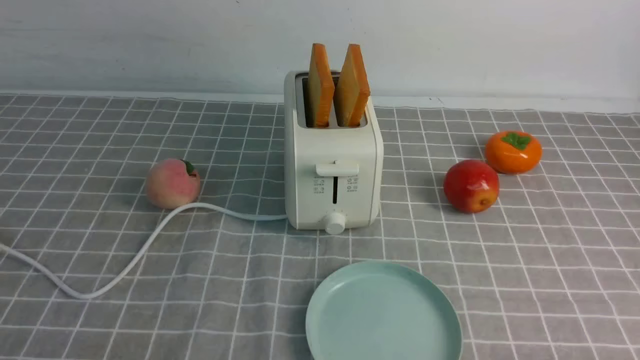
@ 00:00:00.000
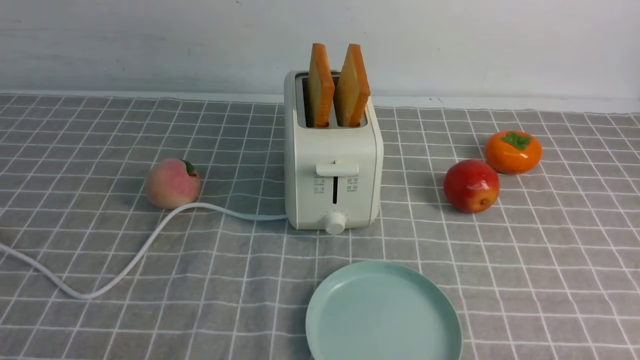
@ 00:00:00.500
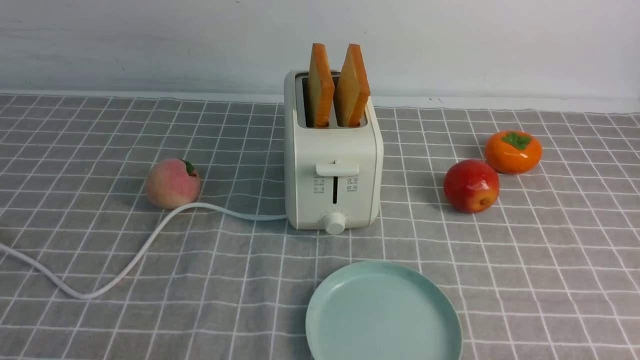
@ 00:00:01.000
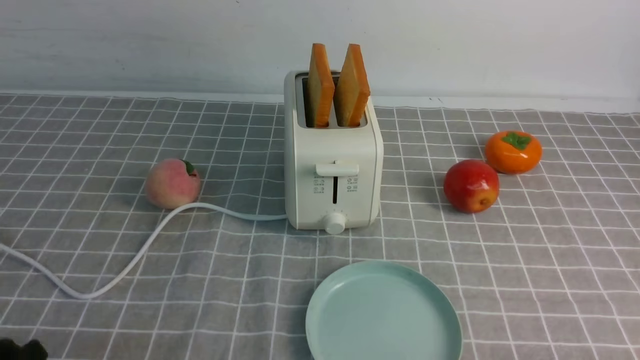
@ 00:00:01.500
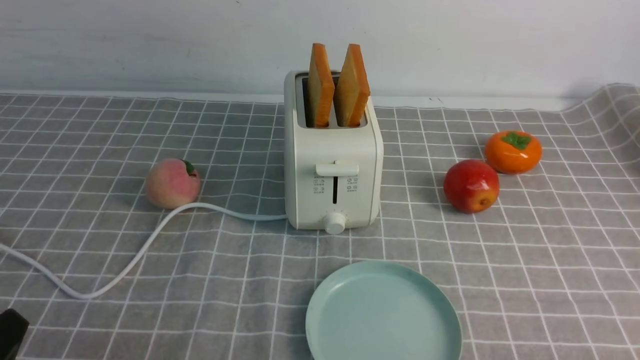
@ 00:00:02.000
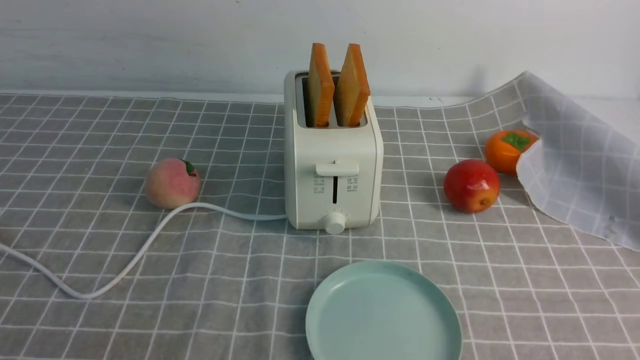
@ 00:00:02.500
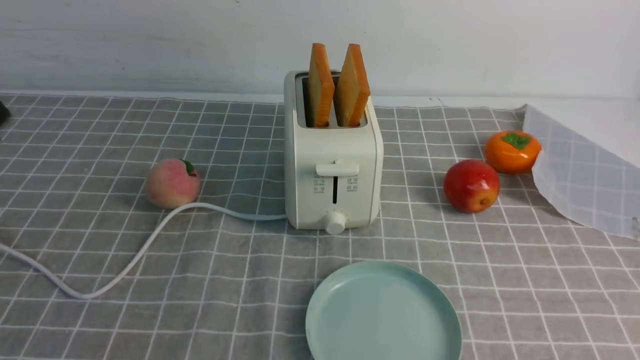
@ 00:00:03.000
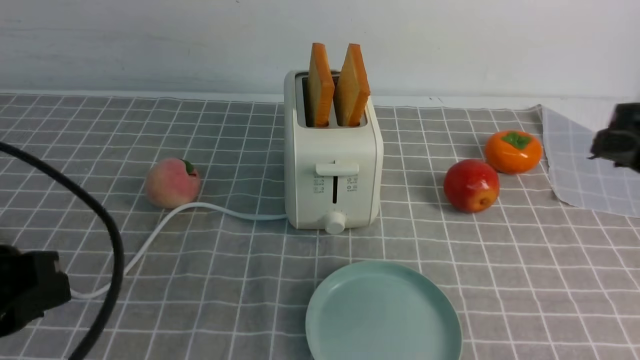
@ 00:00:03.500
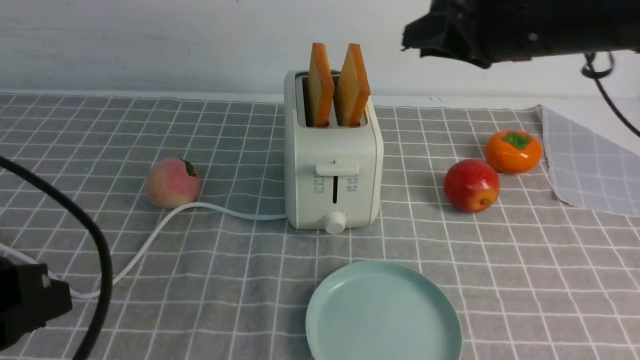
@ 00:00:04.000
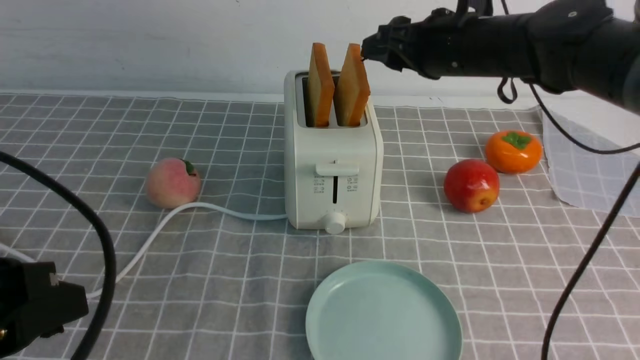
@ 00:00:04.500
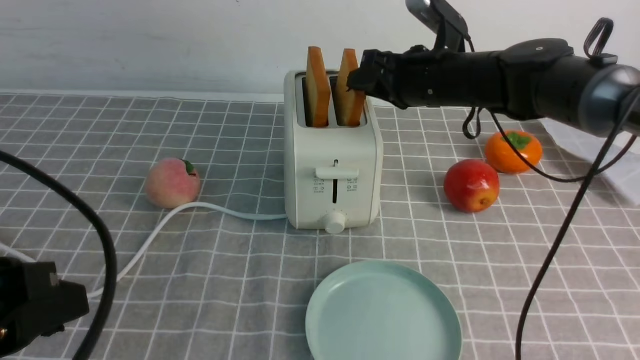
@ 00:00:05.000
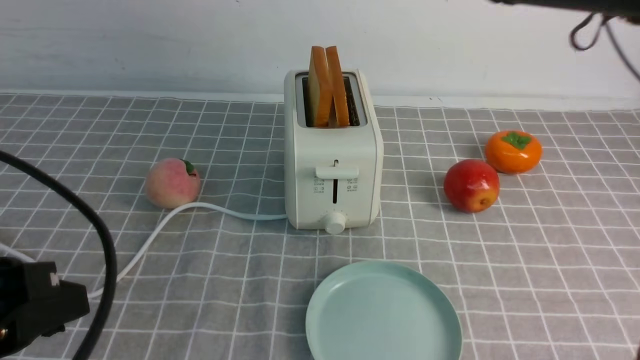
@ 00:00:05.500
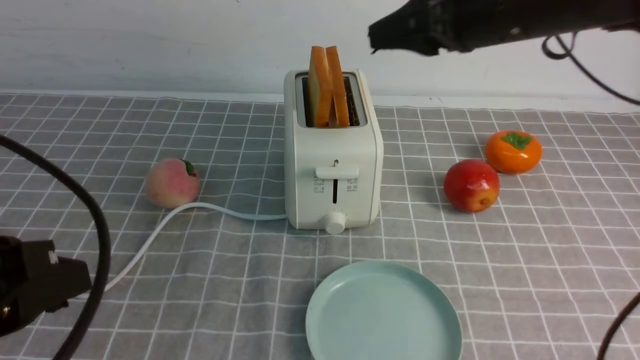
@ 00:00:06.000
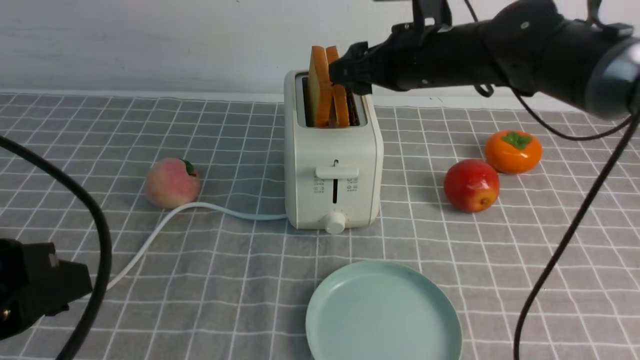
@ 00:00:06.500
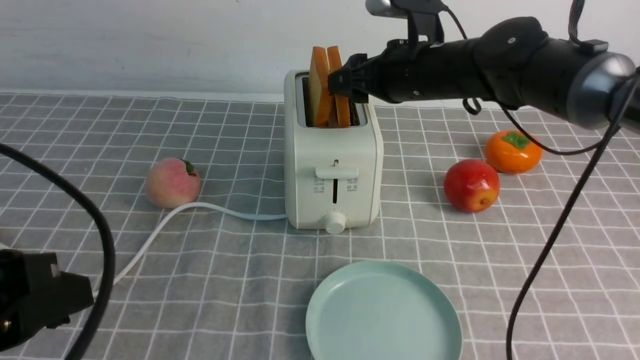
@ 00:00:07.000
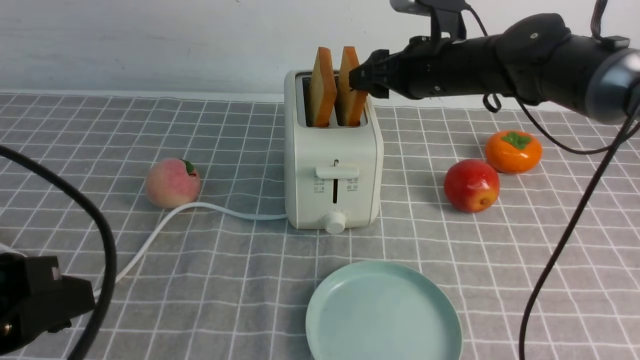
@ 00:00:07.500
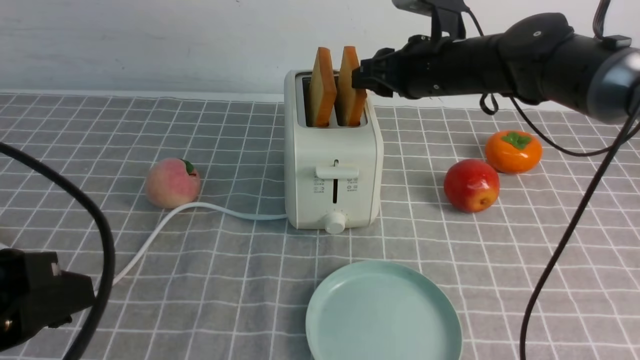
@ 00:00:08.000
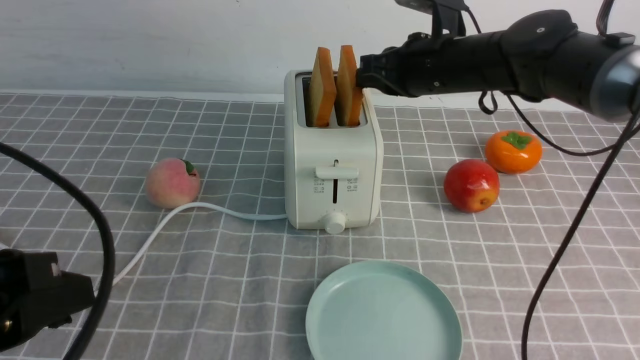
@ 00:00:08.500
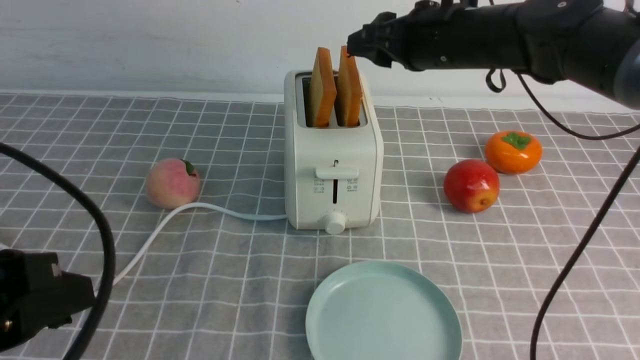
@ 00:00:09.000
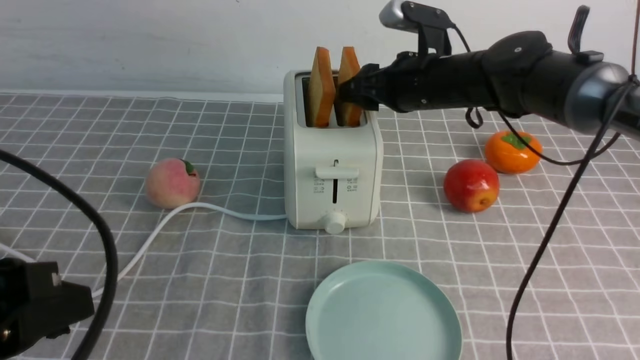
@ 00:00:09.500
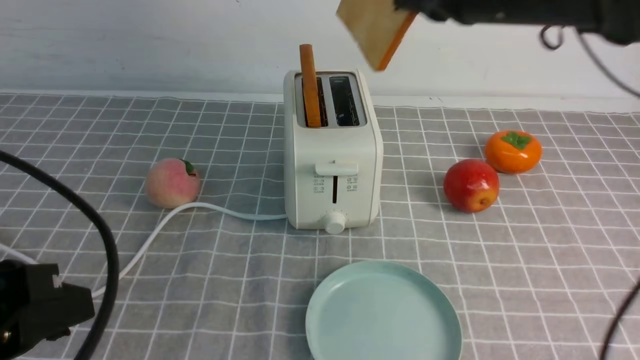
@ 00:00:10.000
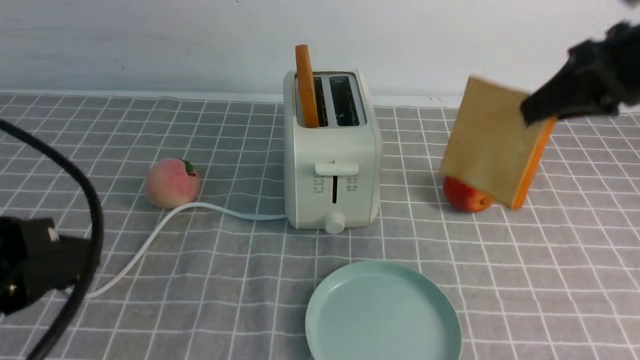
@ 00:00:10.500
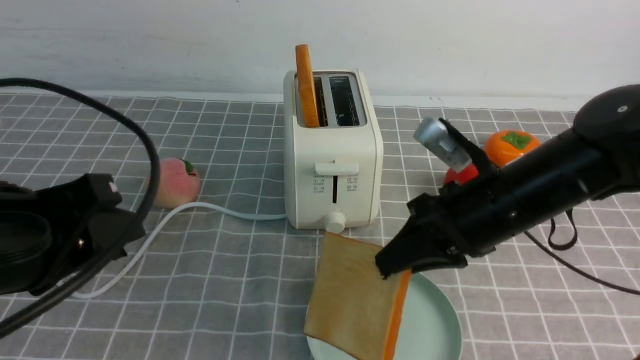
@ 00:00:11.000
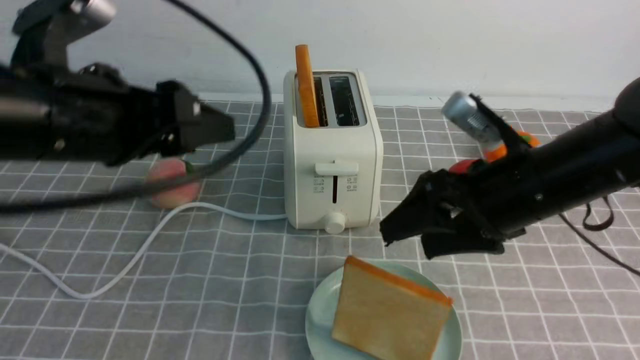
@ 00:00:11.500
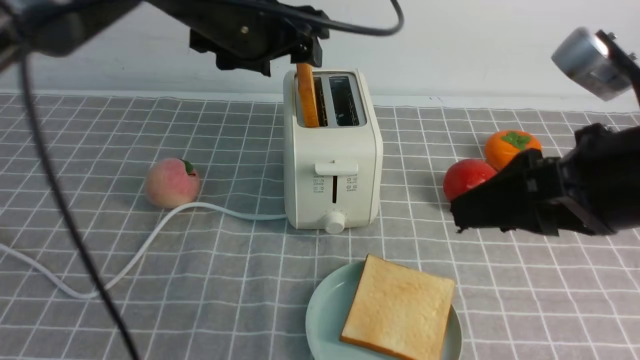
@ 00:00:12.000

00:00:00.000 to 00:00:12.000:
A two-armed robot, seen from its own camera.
Task of the whole recording: take toasted bread from bread machine on grey coffee table place on plate.
Step, 00:00:00.000 to 00:00:09.500: use the right arm to take out a slice of bread.
Step, 00:00:10.000 to 00:00:12.000: use the right arm to put a slice of bread into the plate.
00:00:02.000 to 00:00:04.000: The left gripper heads upward and forward, covering some 15 cm, while the right gripper moves forward, upward and to the left, some 40 cm.
00:00:04.000 to 00:00:06.000: The right gripper reaches roughly 10 cm downward, then returns, and closes, then reopens.
00:00:06.000 to 00:00:08.000: The right gripper travels downward and forward by some 10 cm.
00:00:08.000 to 00:00:10.000: The right gripper is displaced upward and to the right by some 10 cm.
00:00:10.000 to 00:00:12.000: The right gripper goes roughly 20 cm backward, and opens up. The left gripper travels forward and to the right by some 30 cm, and opens up.

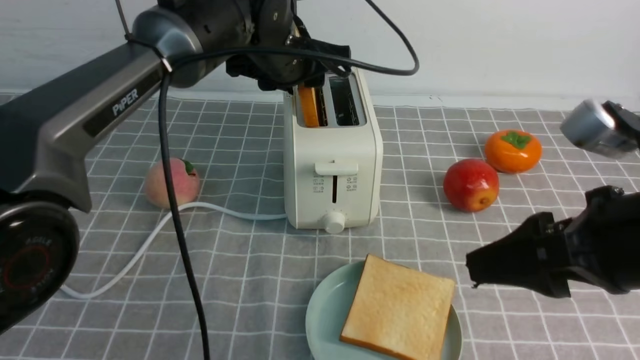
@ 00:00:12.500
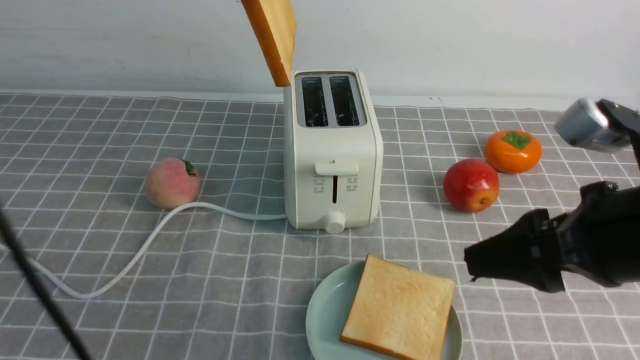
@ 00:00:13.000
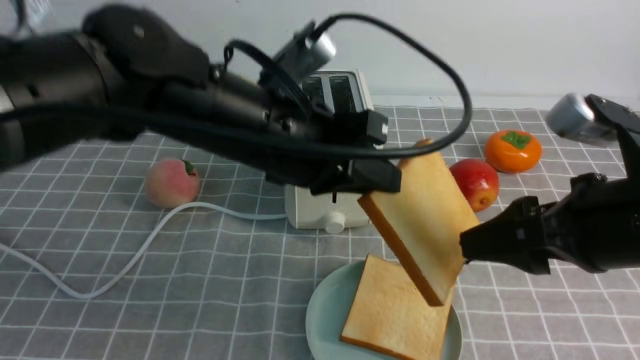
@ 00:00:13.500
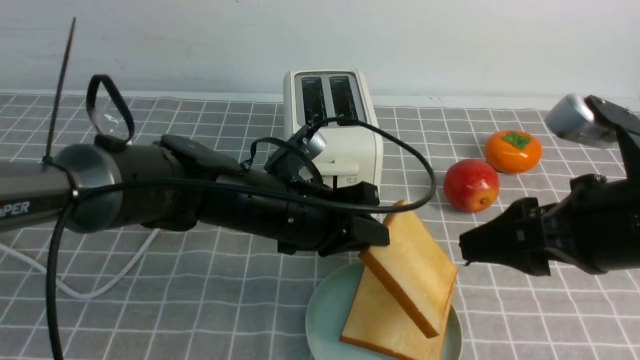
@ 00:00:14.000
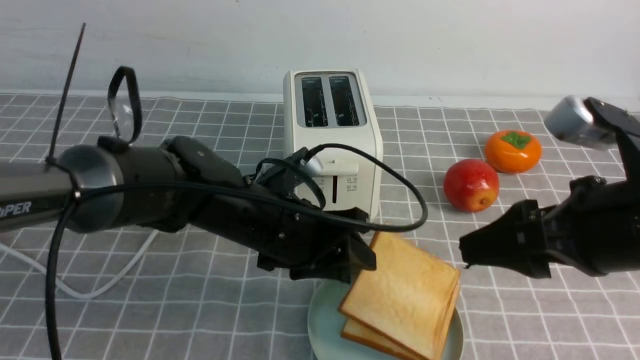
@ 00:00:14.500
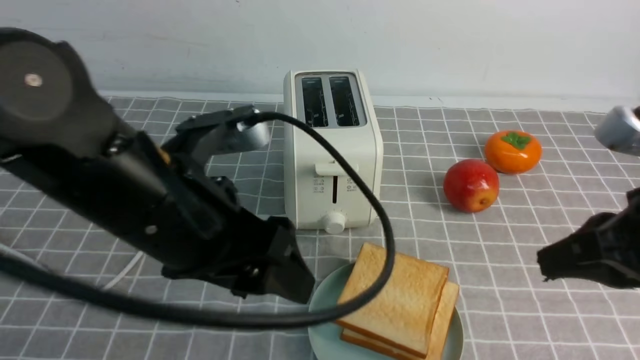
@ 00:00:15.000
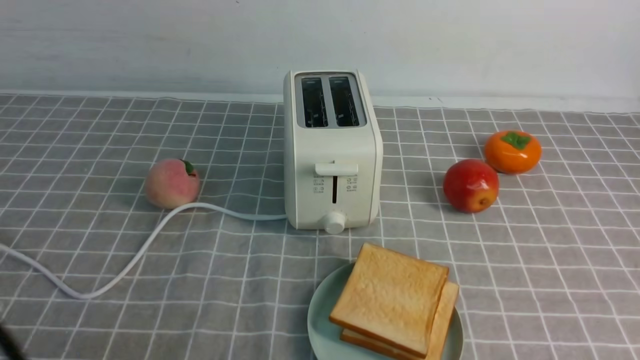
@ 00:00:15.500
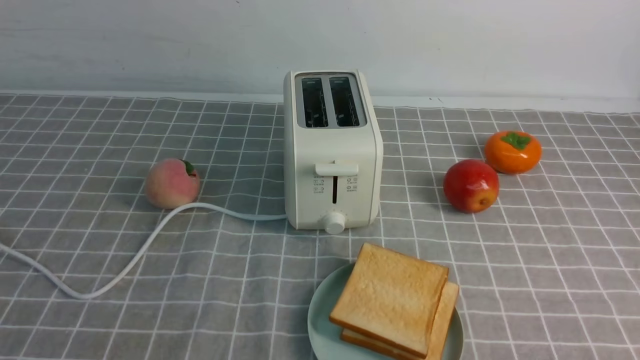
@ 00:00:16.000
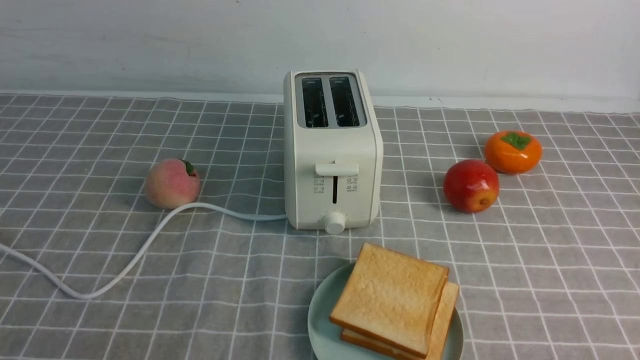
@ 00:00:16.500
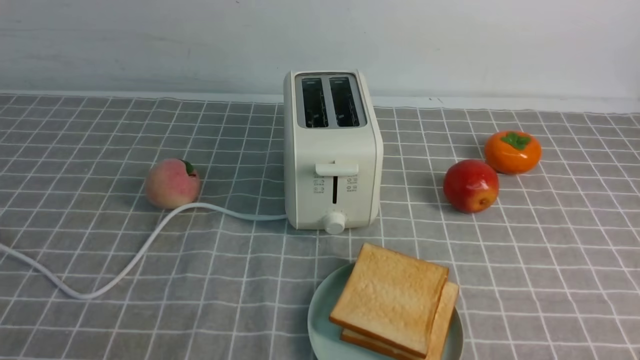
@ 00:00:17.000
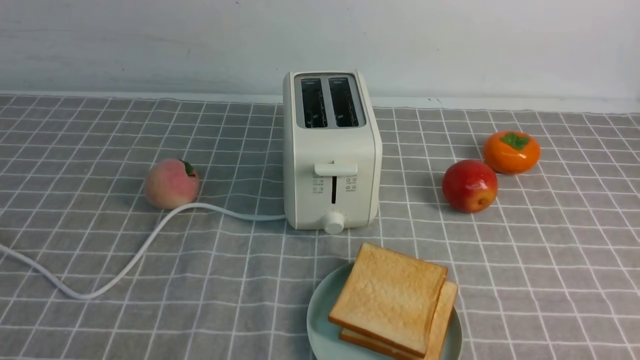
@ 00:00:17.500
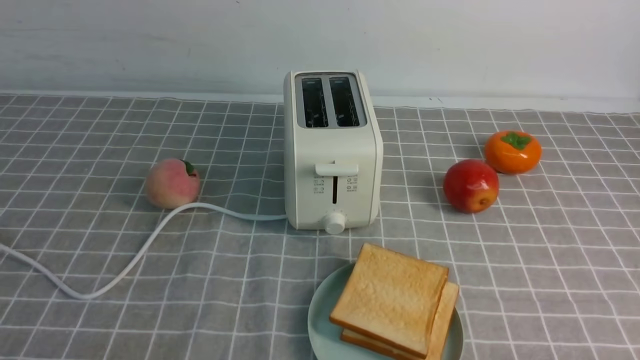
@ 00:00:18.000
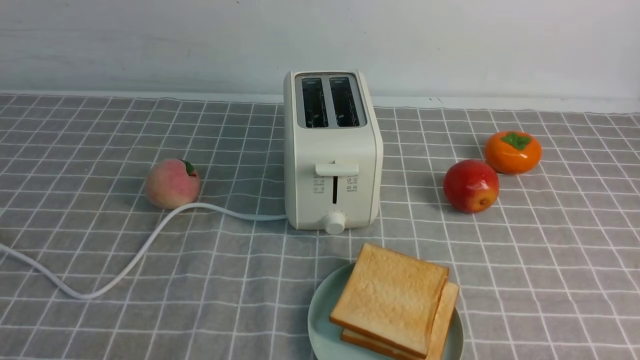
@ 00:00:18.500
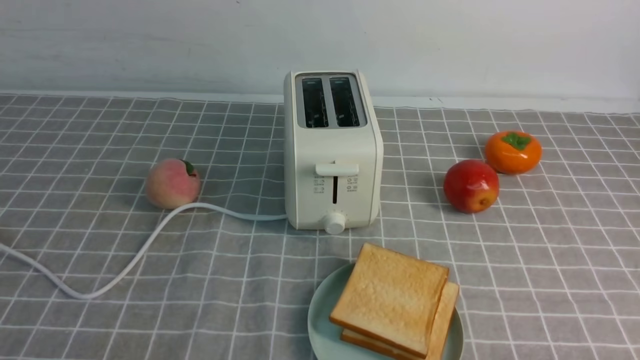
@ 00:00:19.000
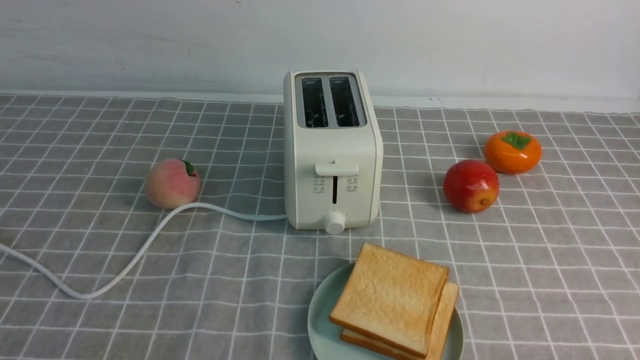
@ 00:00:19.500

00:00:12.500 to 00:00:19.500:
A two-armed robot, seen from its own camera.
Task of the whole recording: take toasted bread from bread machine on grey coffee table place on plate.
Step, 00:00:13.000 to 00:00:15.000: use the left arm to put a slice of bread into the empty plate.
00:00:12.500 to 00:00:14.500: The left gripper travels backward and downward by some 20 cm, and closes and opens again.
00:00:14.500 to 00:00:16.000: The left gripper travels backward and to the left by some 35 cm, and closes its fingers. The right gripper is displaced backward, downward and to the right by about 20 cm, and closes its fingers.
